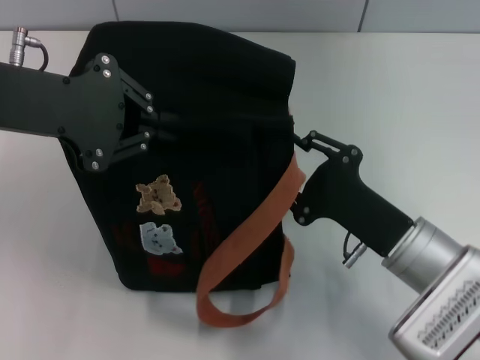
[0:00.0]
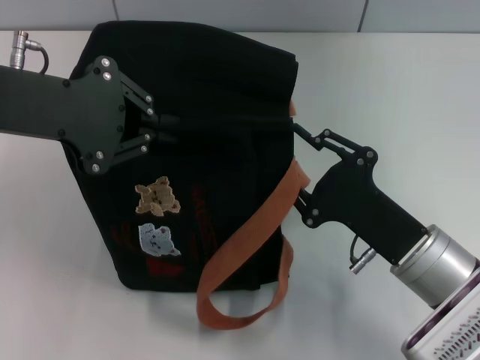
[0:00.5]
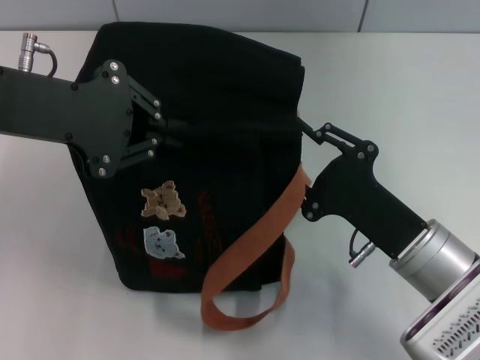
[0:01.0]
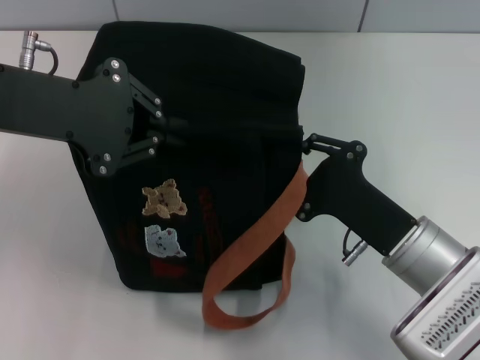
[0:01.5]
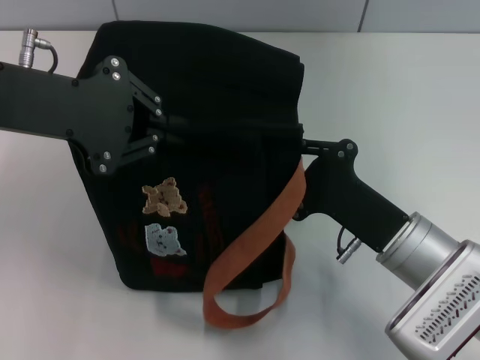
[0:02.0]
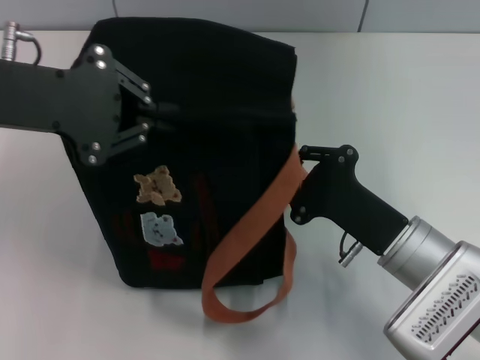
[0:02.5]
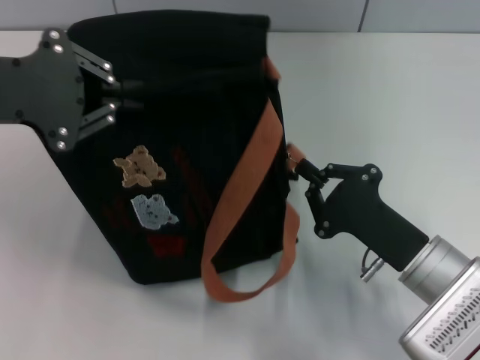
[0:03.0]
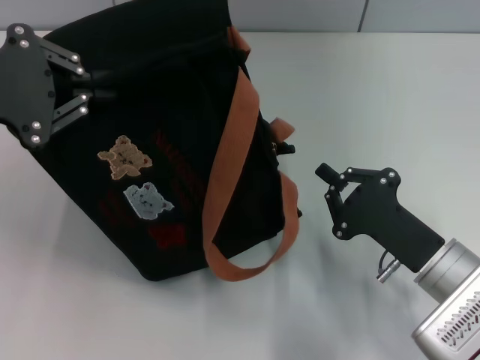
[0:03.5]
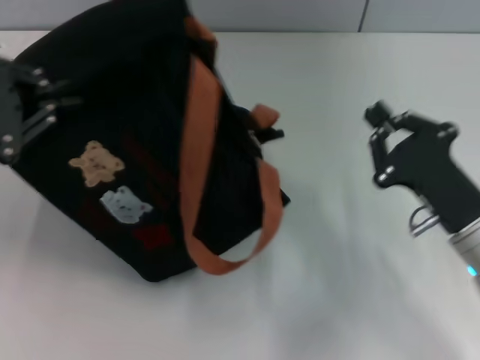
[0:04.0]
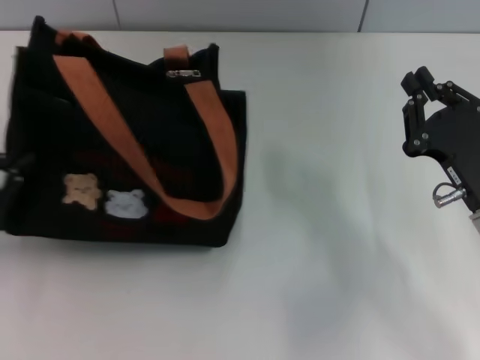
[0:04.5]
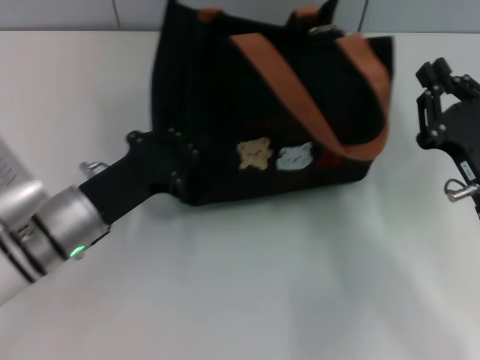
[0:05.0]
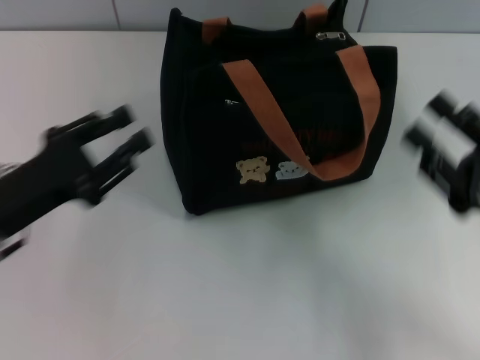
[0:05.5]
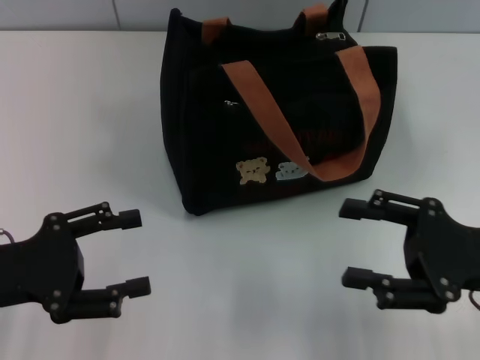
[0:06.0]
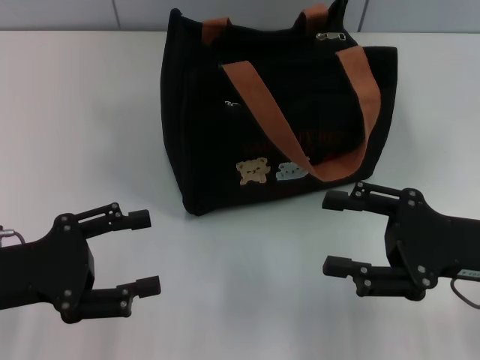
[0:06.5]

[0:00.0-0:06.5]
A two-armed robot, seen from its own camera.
Step, 0:00.0 to 0:03.0: Pull open the zipper with your right hand.
Step, 0:03.5 to 0:05.0: Grab the bag with your left hand.
0:00.0 to 0:02.0: The right gripper closes its fingers.
0:02.0 to 0:04.5: The right gripper moves to the right, some 5 cm; the left gripper shifts some 20 cm downward, to the left and backward.
0:04.5 to 0:06.5: The right gripper opens, while the left gripper goes roughly 5 cm to the right, and opens.

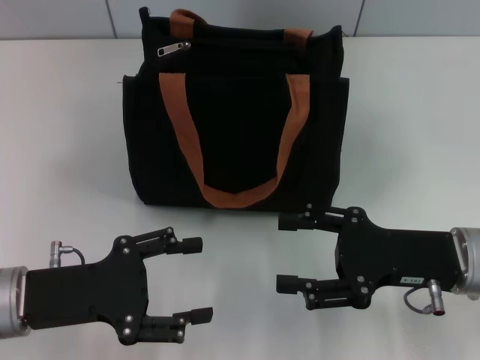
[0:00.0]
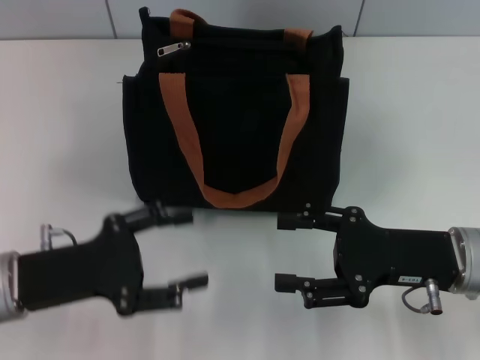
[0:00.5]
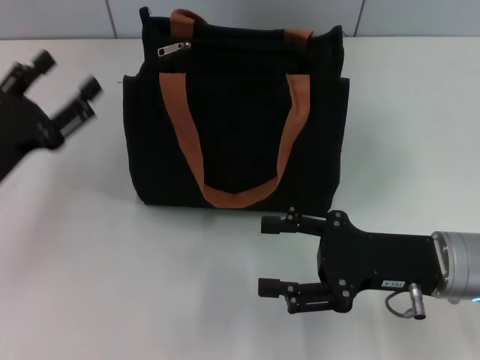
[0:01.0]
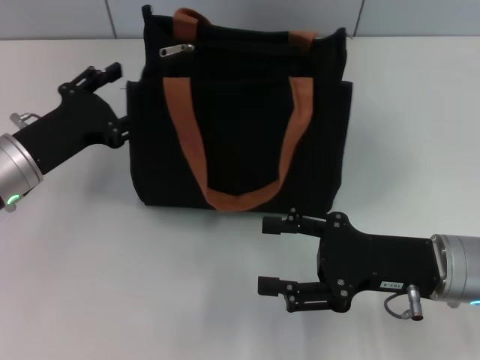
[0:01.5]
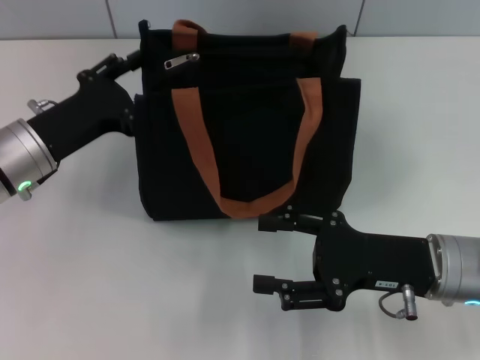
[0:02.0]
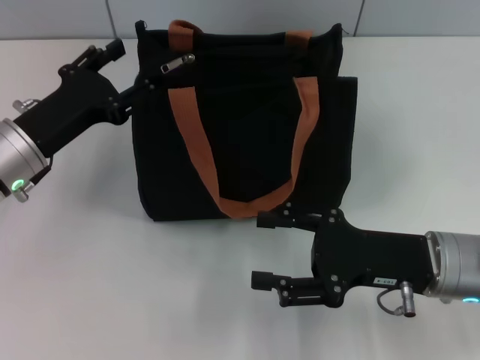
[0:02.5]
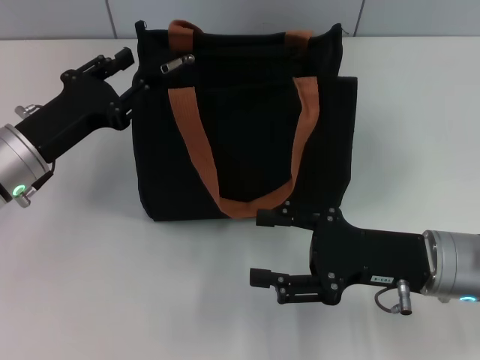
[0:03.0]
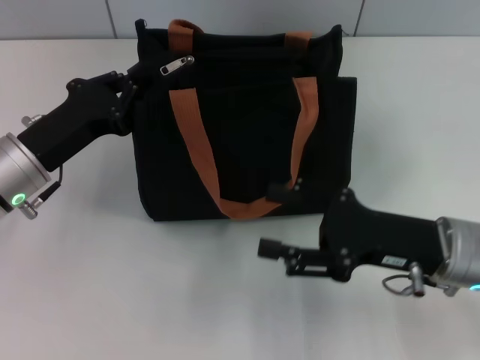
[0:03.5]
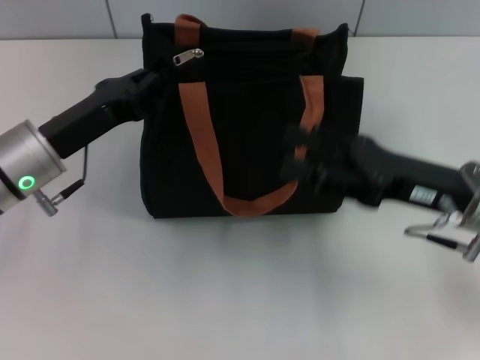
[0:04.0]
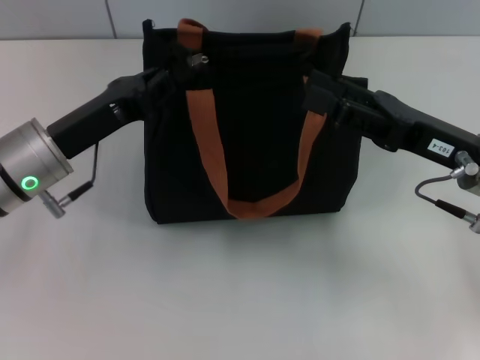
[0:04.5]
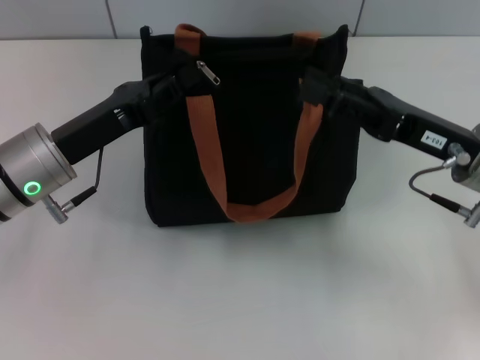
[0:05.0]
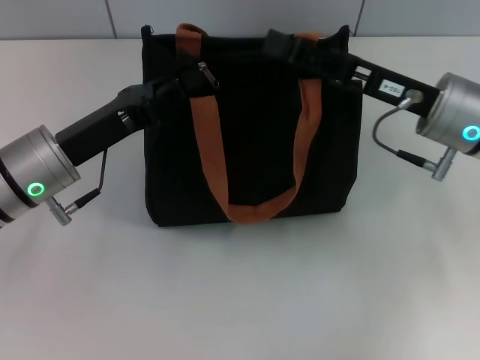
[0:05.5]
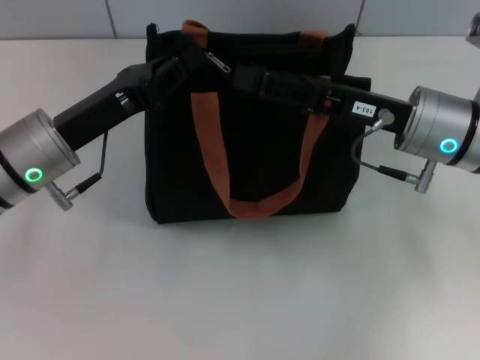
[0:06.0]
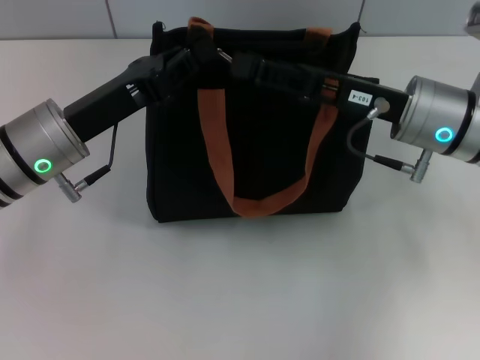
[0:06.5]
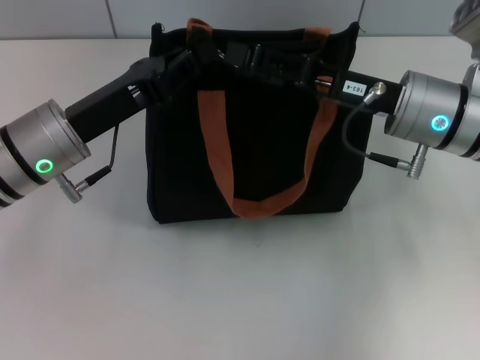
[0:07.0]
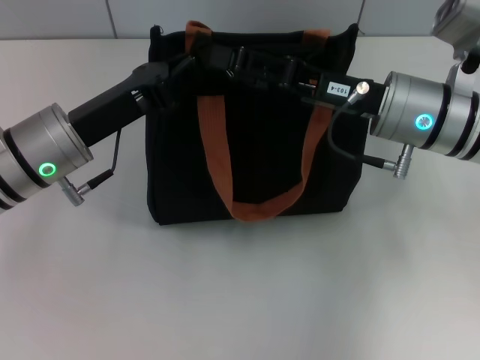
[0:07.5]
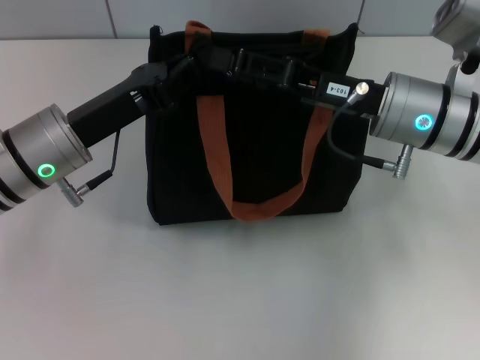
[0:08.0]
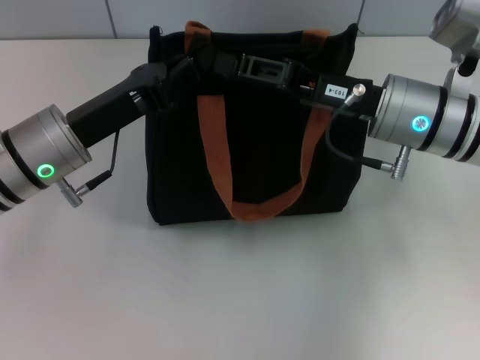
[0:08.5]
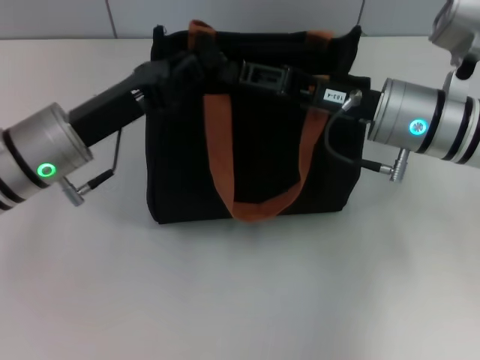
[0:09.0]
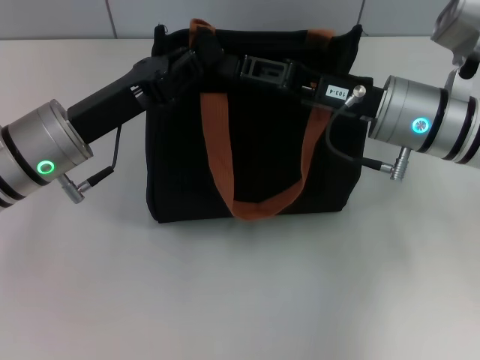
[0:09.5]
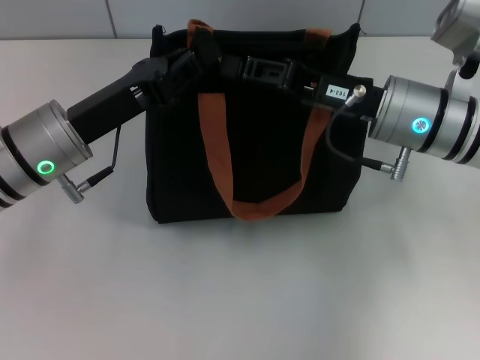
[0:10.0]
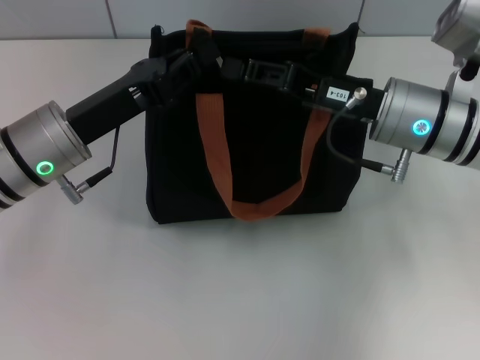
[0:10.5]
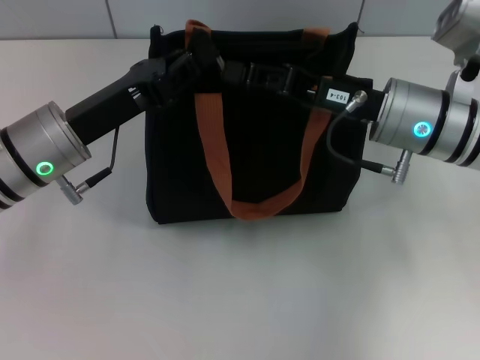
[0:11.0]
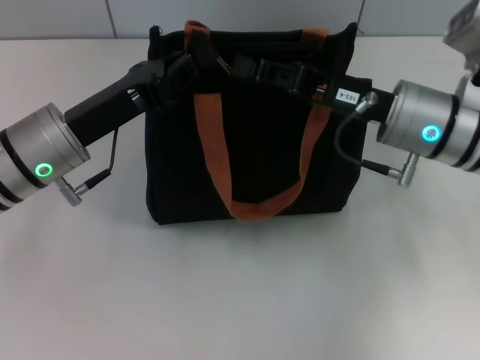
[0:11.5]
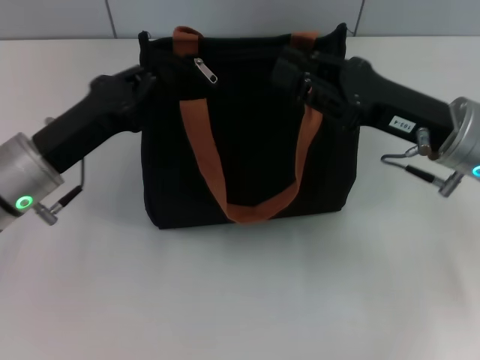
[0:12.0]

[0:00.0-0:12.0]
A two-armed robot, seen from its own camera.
0:00.0 to 0:02.0: The left gripper travels forward by about 10 cm.
0:02.0 to 0:04.0: The left gripper closes up, while the right gripper ends up roughly 5 cm from where it was.
0:04.0 to 0:06.0: The right gripper travels forward by approximately 5 cm.
0:06.0 to 0:08.0: The grippers make only small movements.
0:08.0 to 0:10.0: The right gripper closes.
0:10.0 to 0:12.0: The right gripper shifts by some 5 cm.

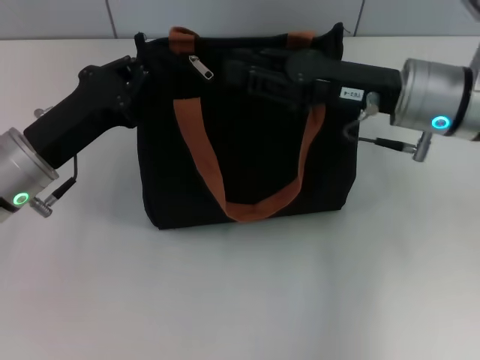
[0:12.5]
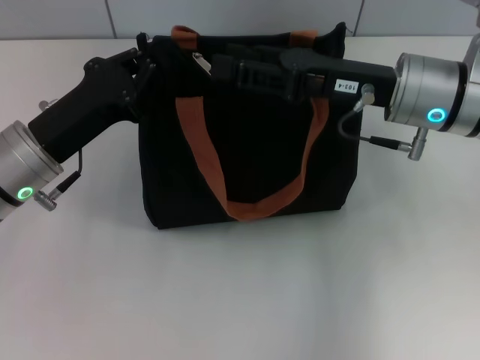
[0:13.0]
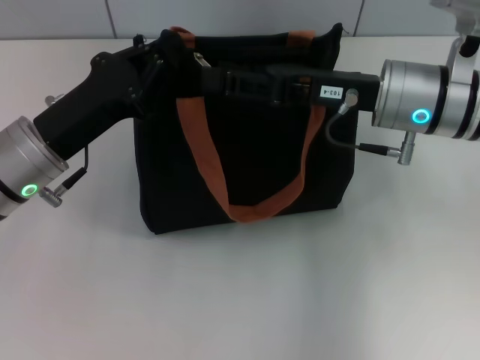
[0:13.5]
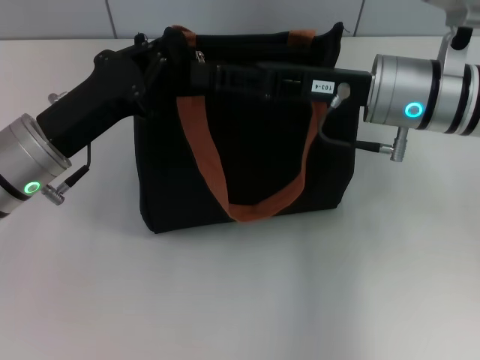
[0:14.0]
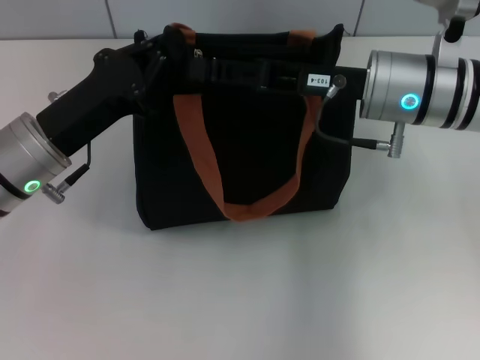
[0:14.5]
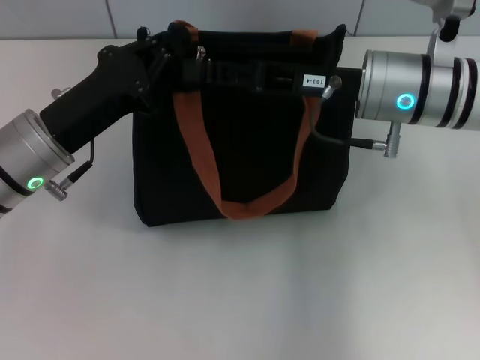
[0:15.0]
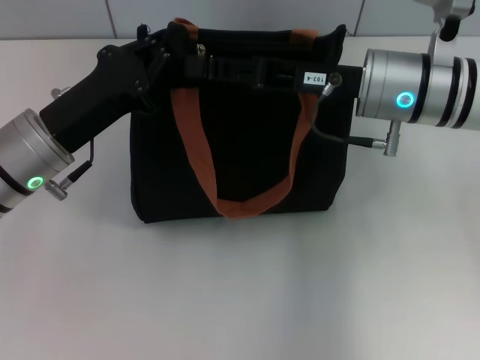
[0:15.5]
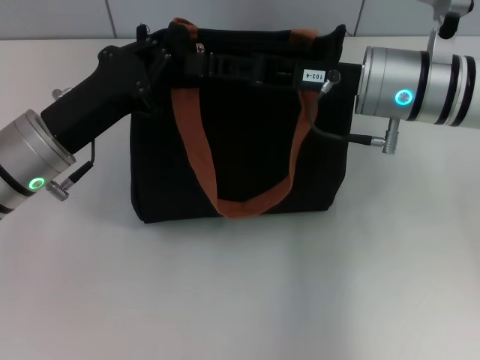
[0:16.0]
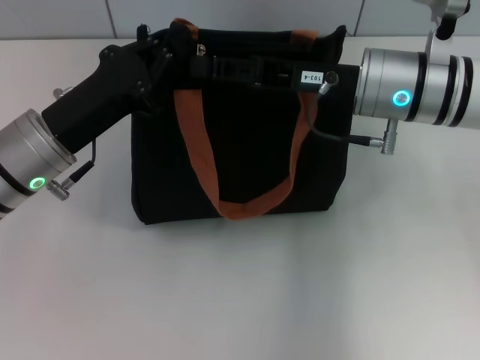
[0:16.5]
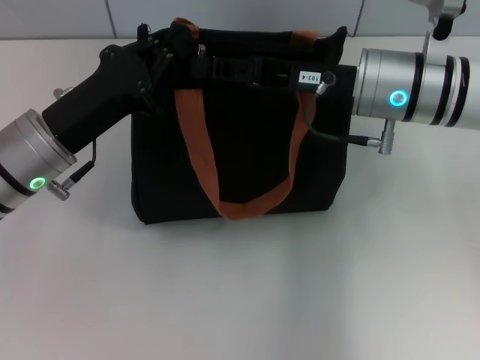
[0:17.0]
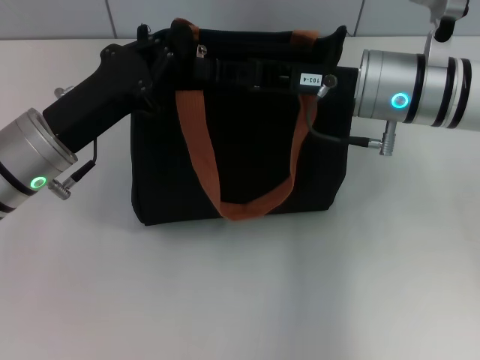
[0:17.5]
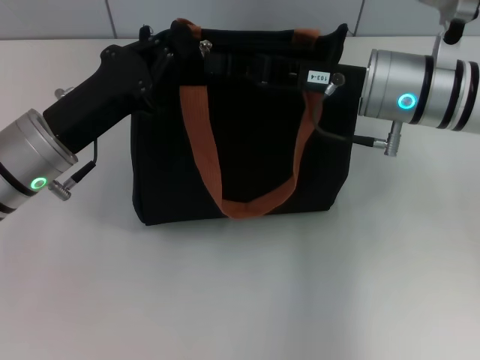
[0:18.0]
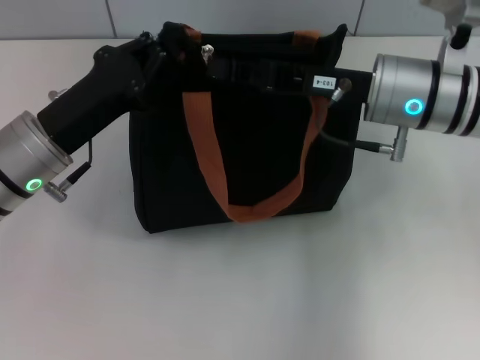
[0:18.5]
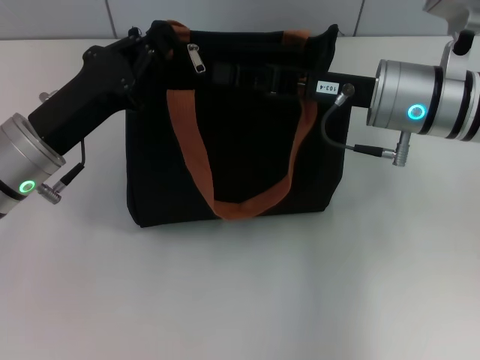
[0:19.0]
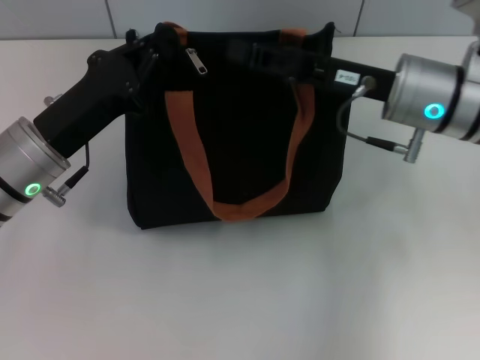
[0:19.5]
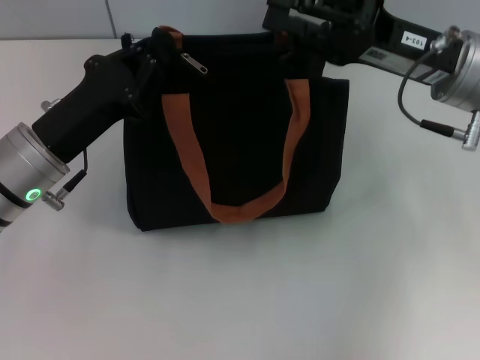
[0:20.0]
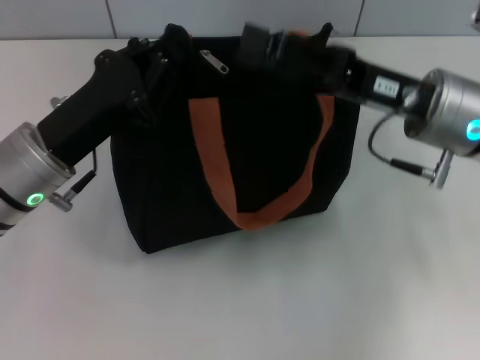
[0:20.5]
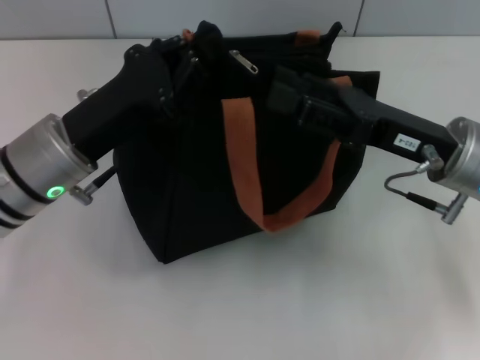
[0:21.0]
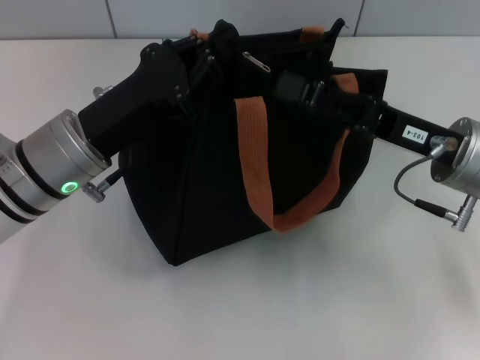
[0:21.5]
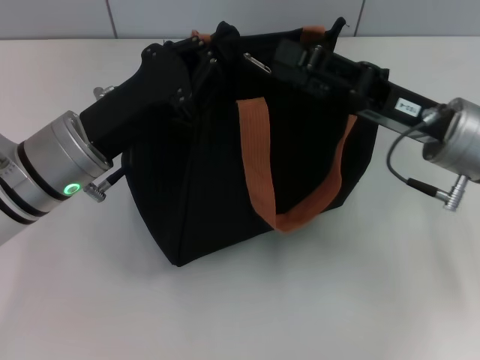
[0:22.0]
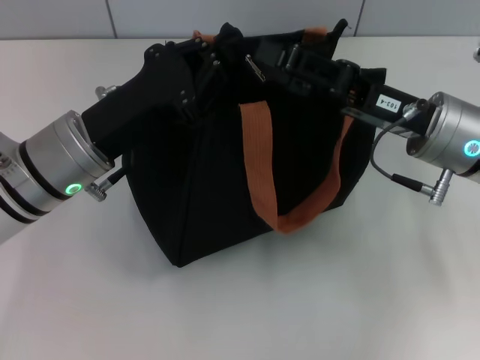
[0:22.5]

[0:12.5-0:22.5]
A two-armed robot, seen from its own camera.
0:14.5 to 0:16.5: The right gripper closes.
0:16.5 to 0:18.5: The right gripper closes.
0:18.5 to 0:20.5: The right gripper opens.
